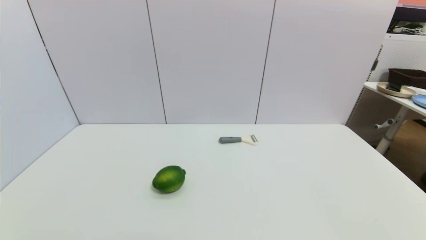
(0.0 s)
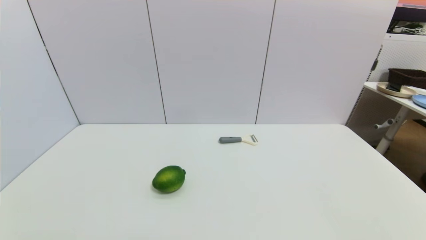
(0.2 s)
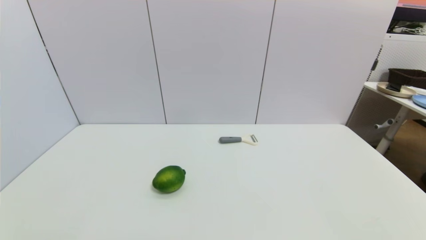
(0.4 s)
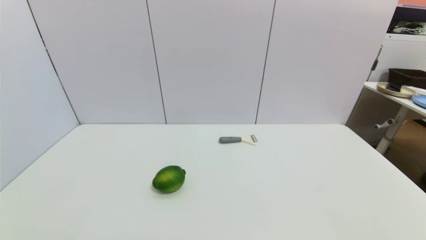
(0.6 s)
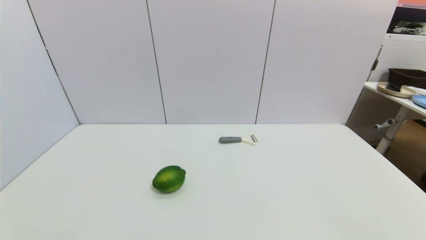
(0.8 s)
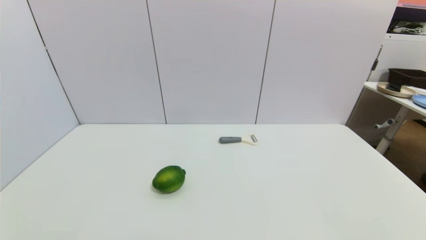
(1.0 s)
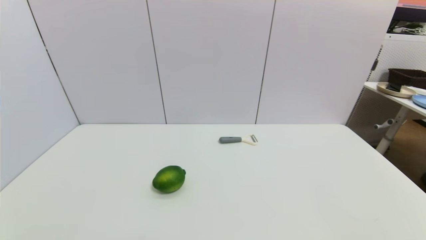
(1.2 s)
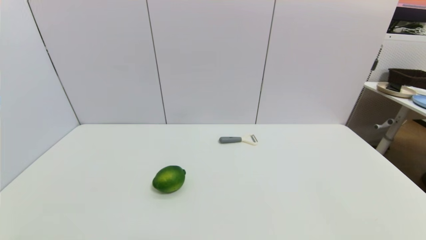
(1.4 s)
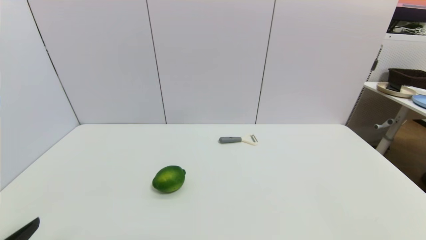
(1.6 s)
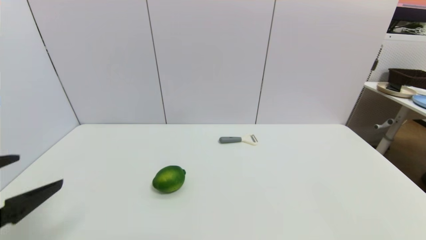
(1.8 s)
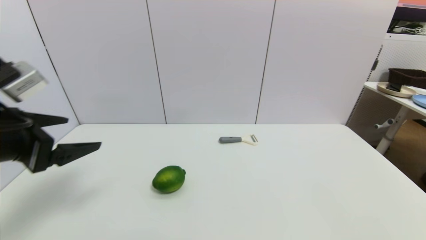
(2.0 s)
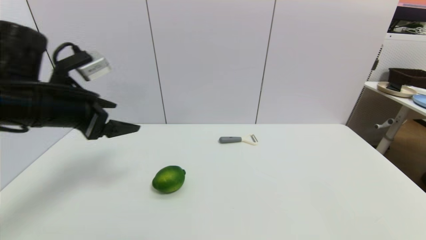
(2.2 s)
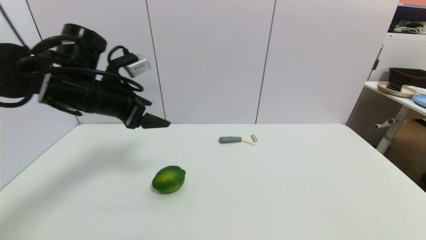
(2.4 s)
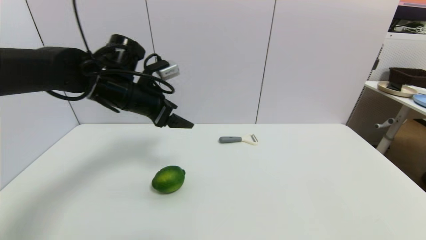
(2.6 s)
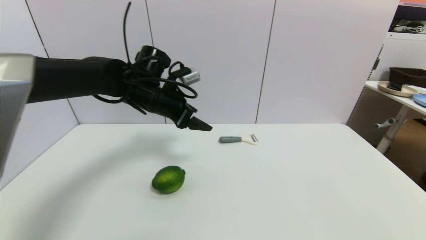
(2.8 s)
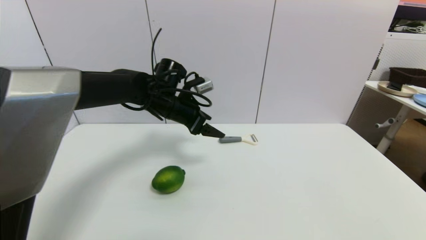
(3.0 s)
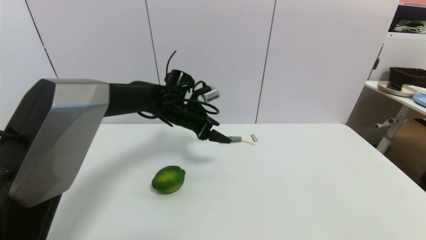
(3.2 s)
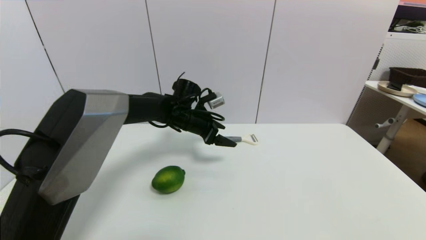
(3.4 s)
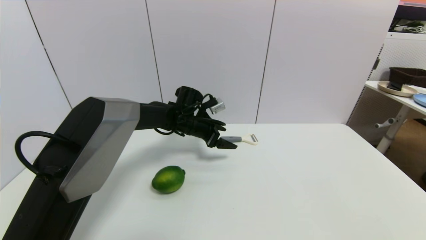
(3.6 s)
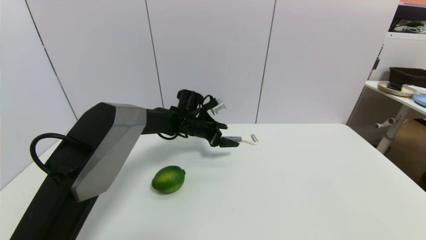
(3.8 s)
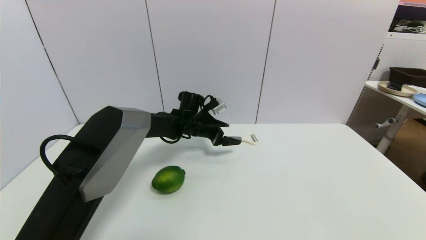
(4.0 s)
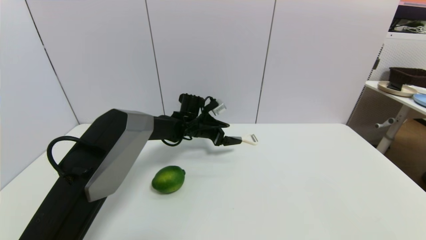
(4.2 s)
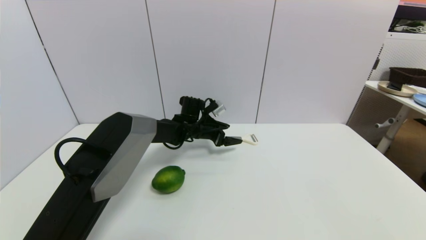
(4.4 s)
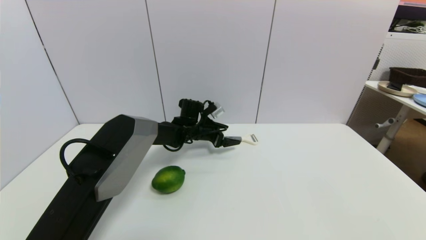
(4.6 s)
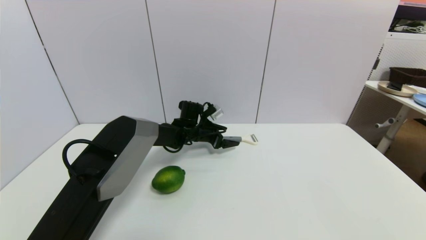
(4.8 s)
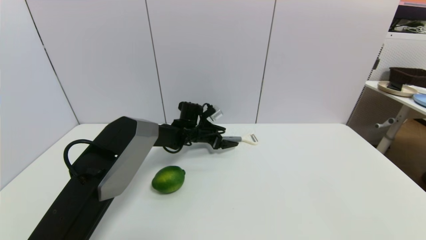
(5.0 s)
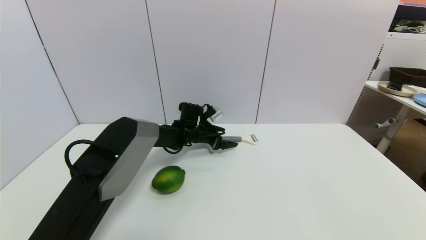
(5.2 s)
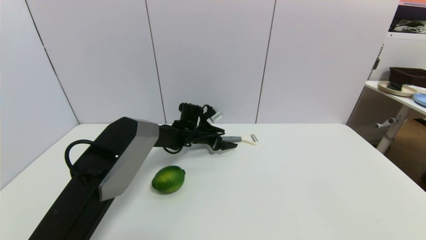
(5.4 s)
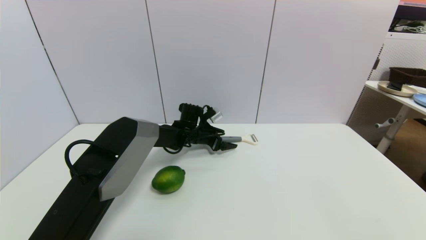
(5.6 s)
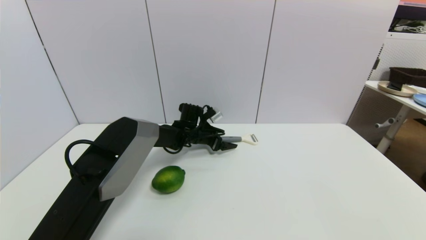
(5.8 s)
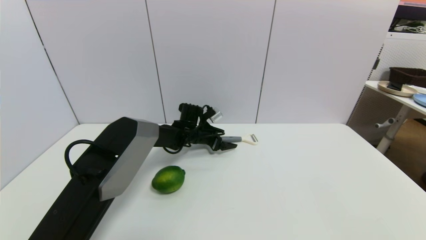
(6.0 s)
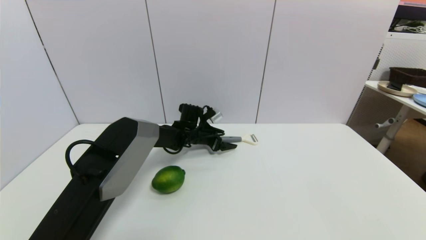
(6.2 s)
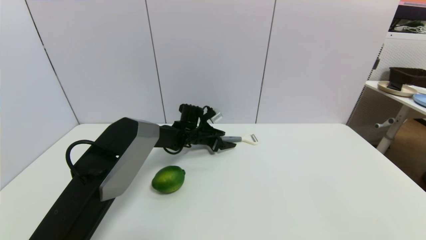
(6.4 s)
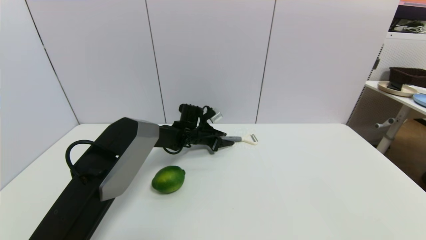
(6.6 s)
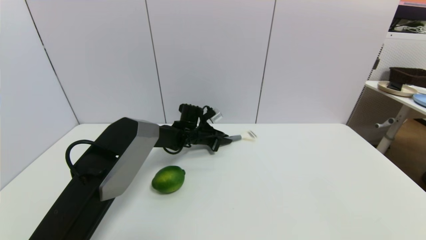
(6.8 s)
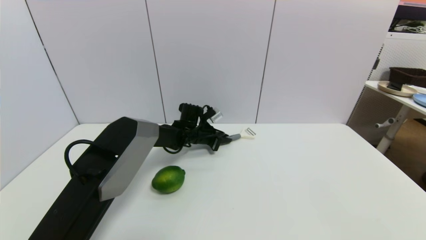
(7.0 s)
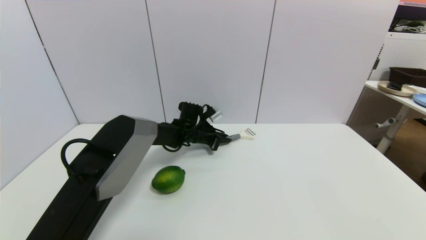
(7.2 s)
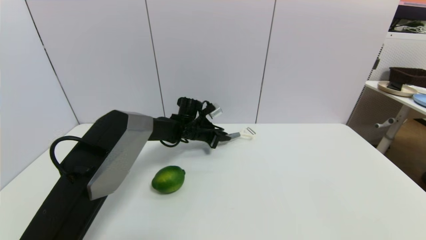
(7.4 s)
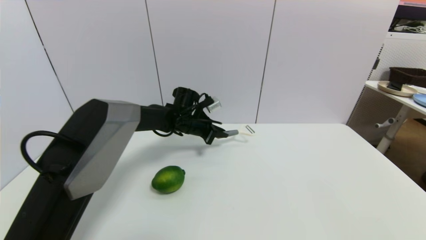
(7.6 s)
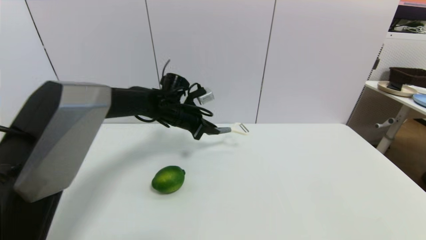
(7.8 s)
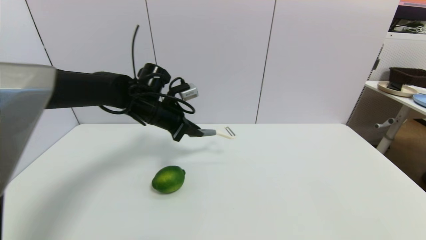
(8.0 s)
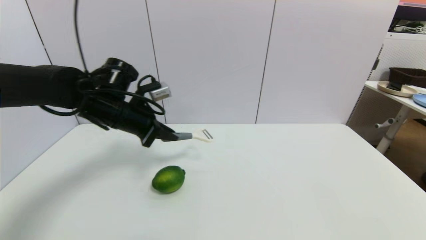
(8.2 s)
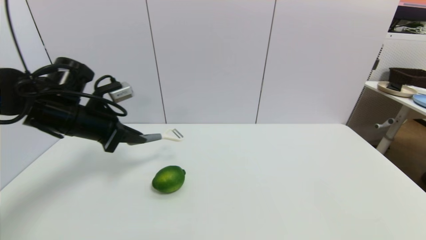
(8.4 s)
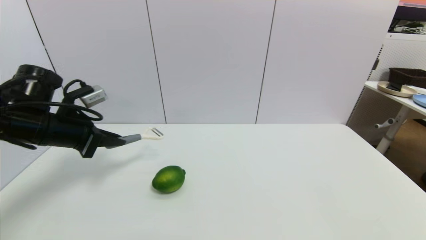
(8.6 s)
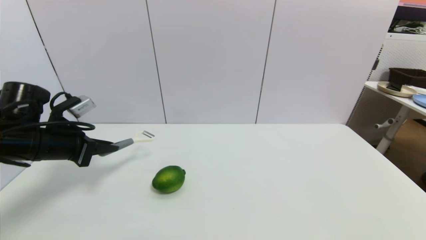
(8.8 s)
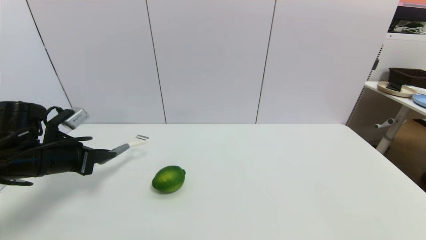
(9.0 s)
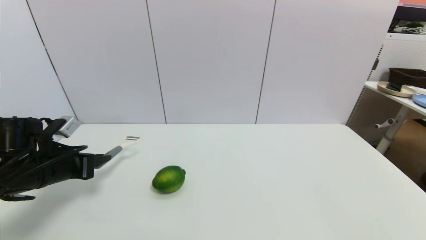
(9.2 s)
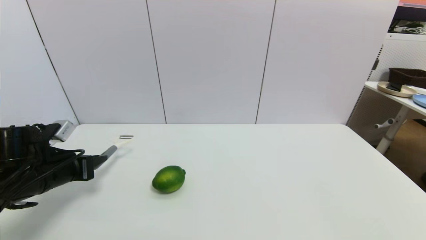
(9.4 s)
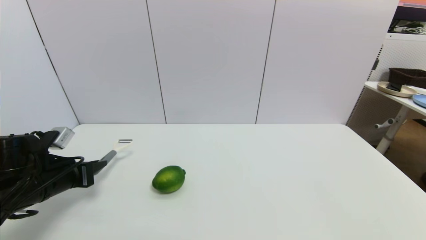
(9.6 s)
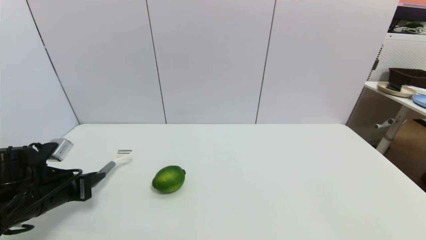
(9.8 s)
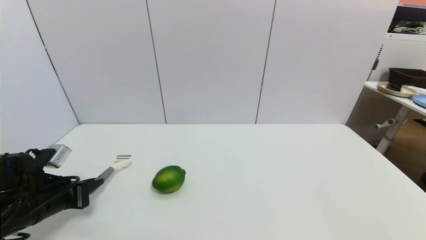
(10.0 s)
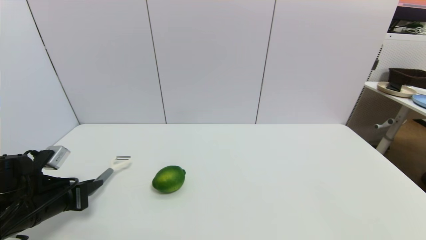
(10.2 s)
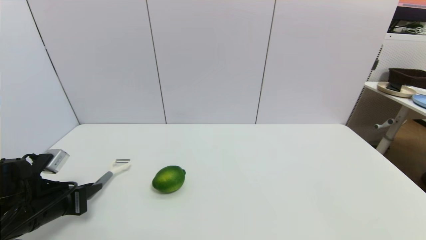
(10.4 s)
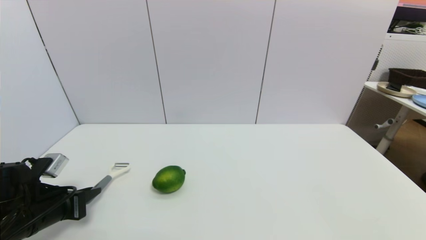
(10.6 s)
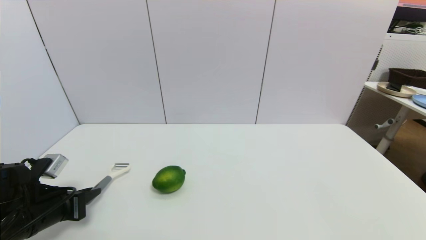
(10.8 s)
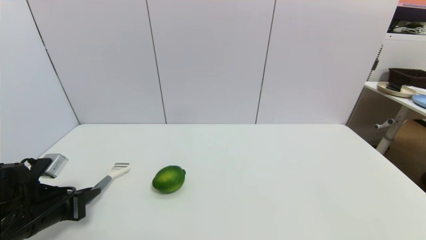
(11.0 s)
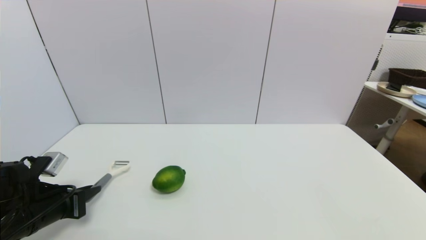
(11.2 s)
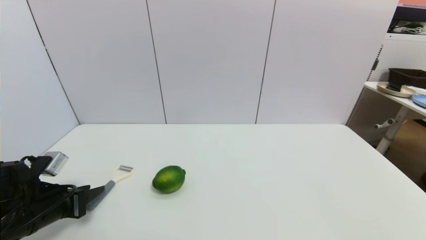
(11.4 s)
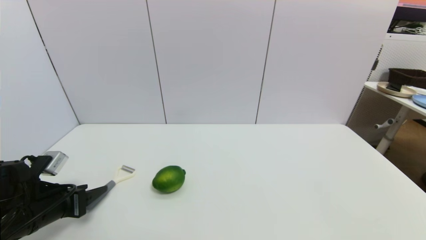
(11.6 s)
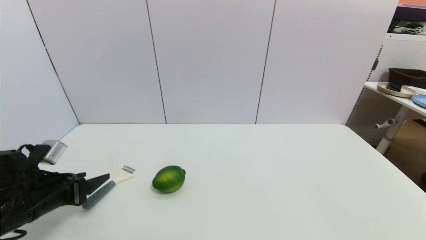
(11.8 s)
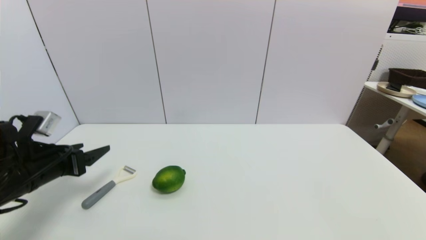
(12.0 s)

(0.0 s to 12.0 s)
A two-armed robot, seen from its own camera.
Step, 1.6 s - 7.6 s: Grasp the peeler with left gripper.
Step, 7.8 s - 11.8 s: Place the peeler on the table with left gripper.
1.6 s - 3.0 s: The left gripper moves forward and to the right, about 40 cm.
3.0 s - 4.4 s: The left gripper is displaced downward and forward by about 15 cm.
4.4 s - 6.0 s: The grippers move only a little.
6.0 s - 7.6 s: The left gripper is displaced upward by about 5 cm, and closes.
7.6 s - 9.0 s: The left gripper shifts some 30 cm to the left and backward.
9.0 s - 10.4 s: The left gripper is displaced downward and backward by some 10 cm.
10.4 s - 12.0 s: The left gripper heads upward, covering some 5 cm, and opens.

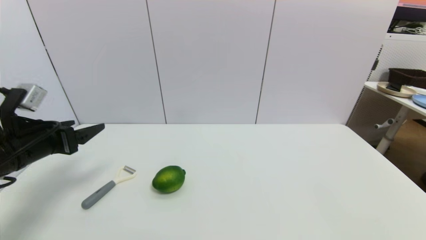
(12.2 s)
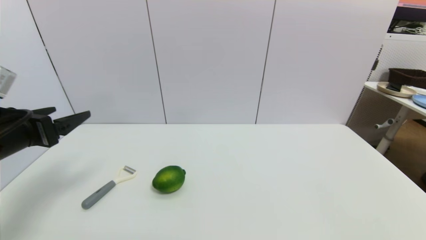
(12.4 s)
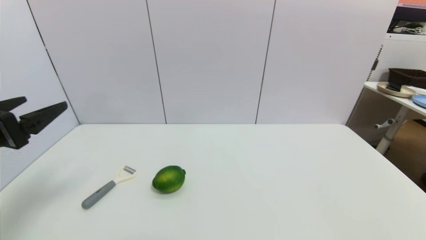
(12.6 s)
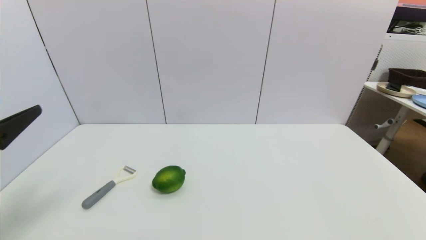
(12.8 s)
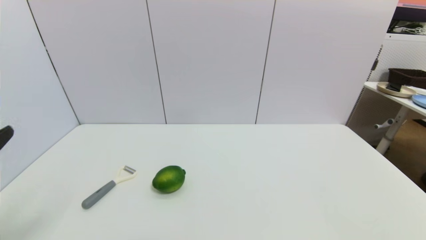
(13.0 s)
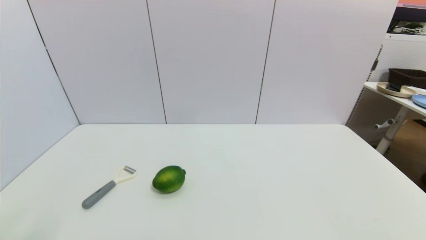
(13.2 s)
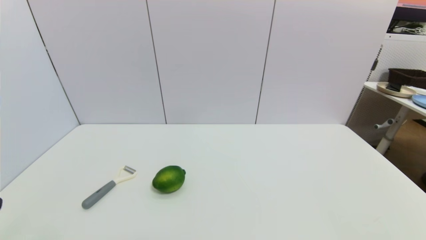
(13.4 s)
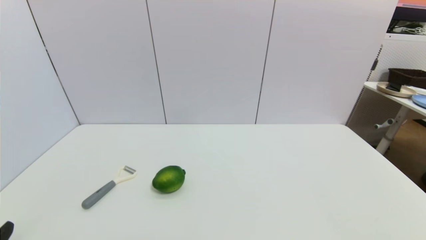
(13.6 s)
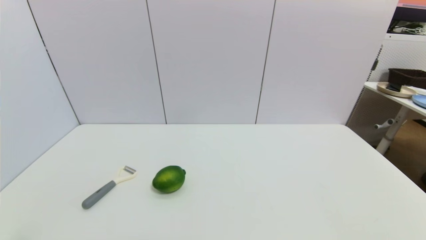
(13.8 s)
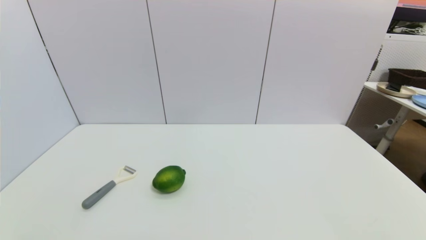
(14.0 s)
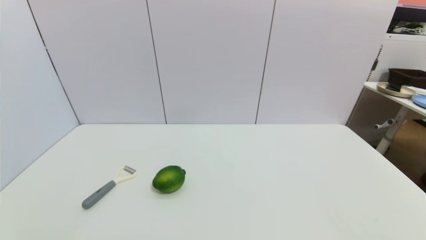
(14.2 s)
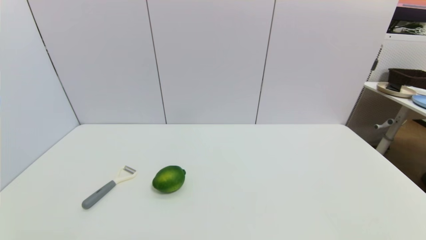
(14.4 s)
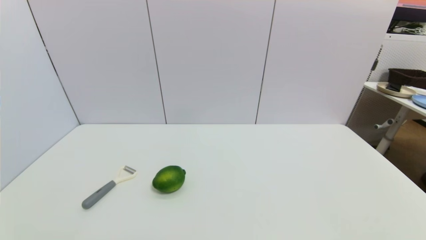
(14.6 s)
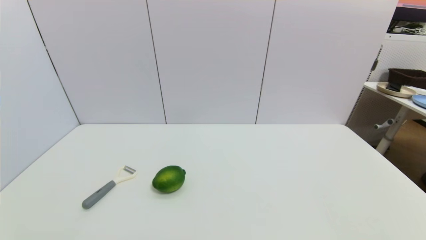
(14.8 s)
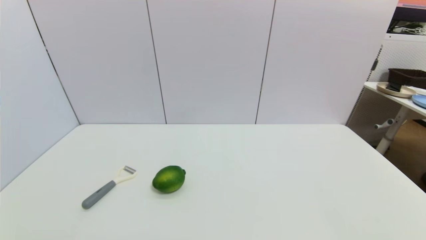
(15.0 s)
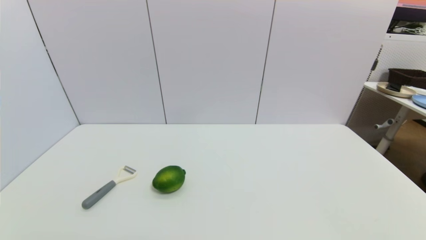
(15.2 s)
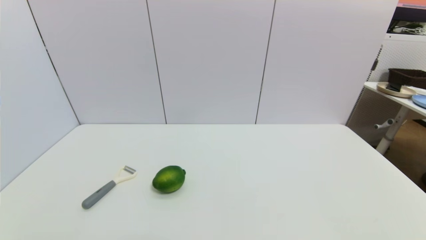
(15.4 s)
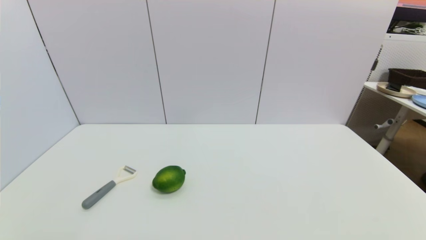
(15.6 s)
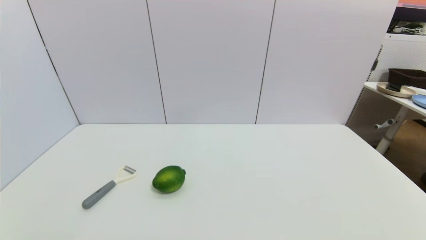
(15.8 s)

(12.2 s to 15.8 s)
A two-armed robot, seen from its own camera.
12.2 s - 14.0 s: The left gripper heads backward and downward, covering roughly 25 cm.

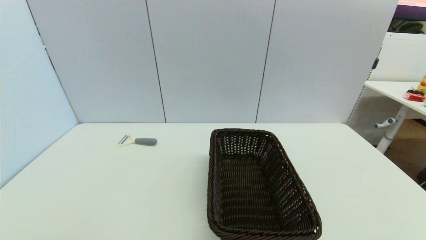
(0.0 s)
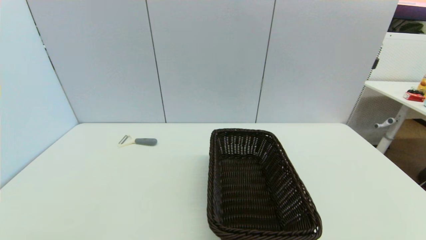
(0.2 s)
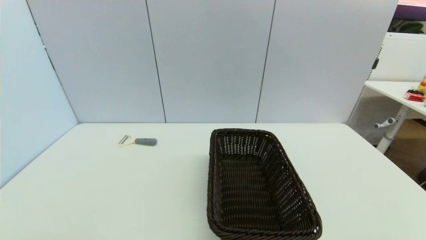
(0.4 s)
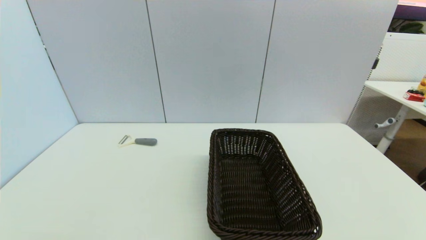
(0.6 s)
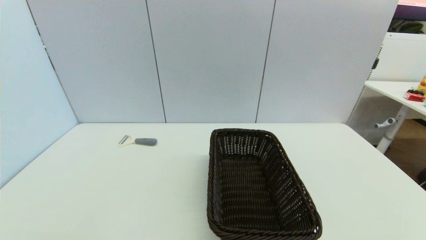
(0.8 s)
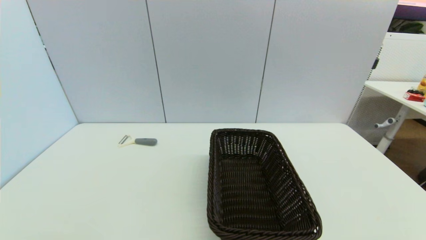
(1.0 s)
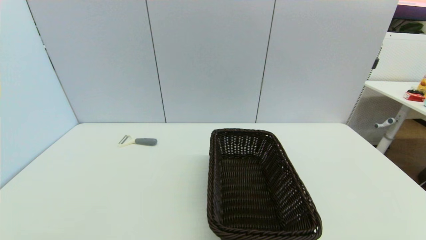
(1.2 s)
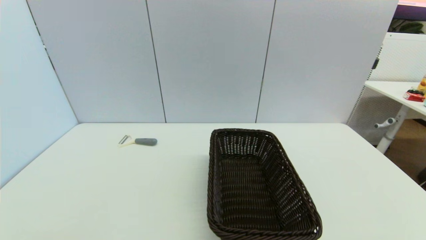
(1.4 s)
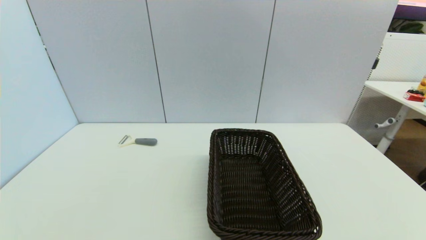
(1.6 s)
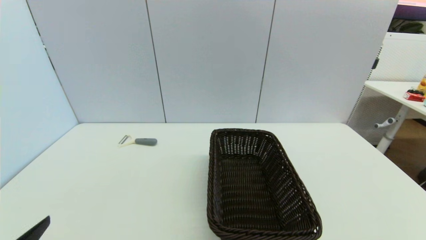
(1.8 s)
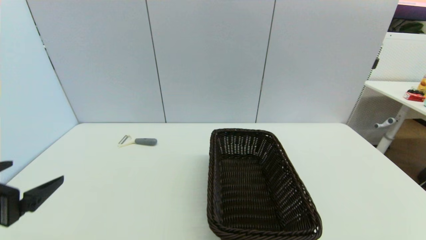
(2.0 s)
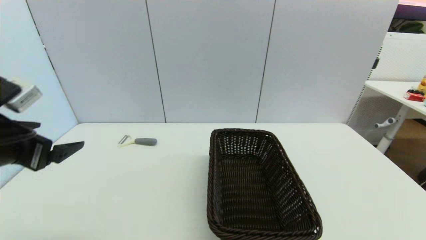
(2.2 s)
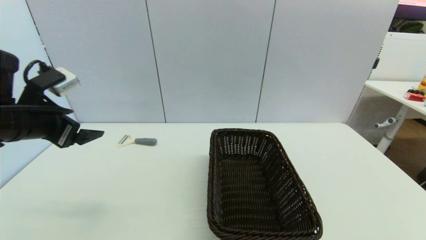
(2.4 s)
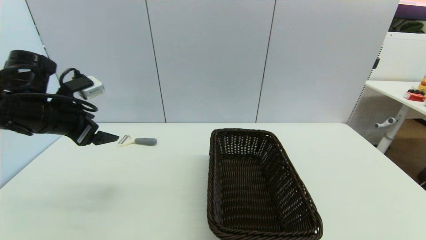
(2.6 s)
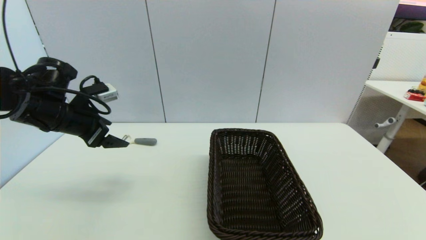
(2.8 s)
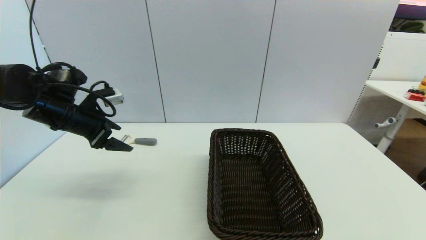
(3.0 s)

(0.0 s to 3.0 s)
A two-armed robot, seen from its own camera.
1.6 s - 3.0 s: The left gripper goes about 35 cm forward.
